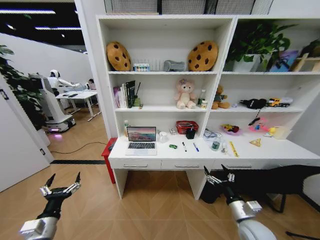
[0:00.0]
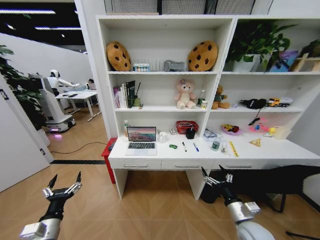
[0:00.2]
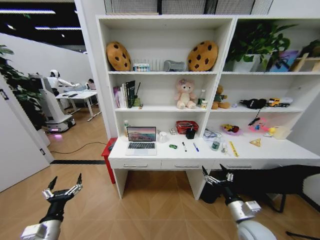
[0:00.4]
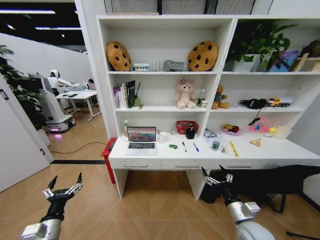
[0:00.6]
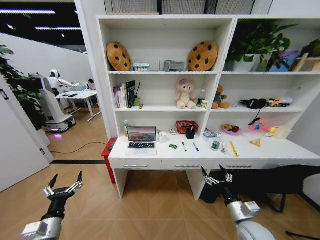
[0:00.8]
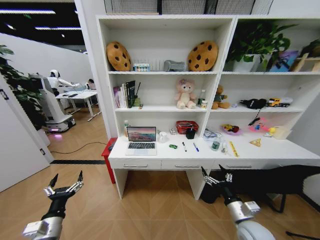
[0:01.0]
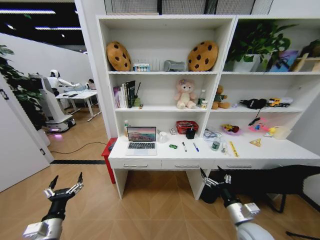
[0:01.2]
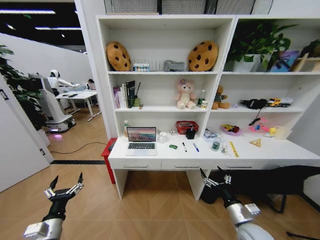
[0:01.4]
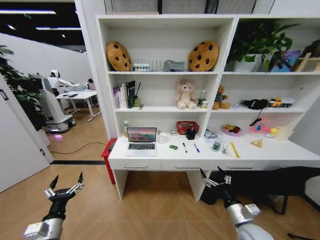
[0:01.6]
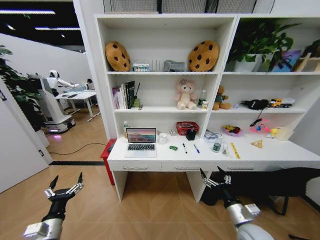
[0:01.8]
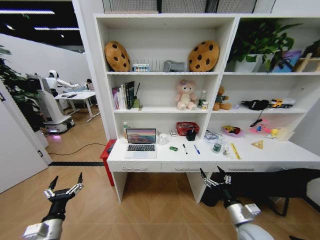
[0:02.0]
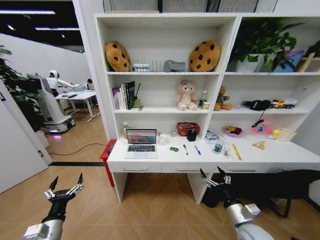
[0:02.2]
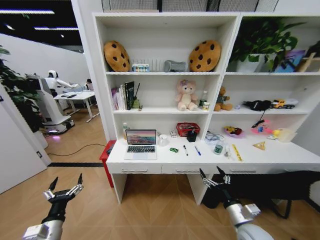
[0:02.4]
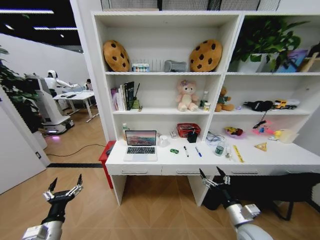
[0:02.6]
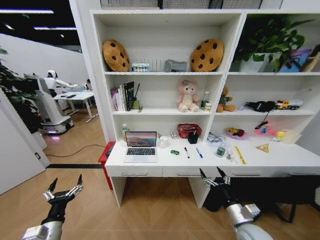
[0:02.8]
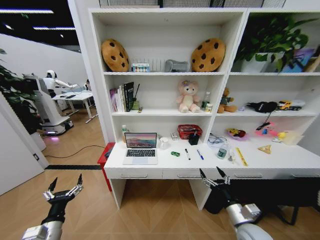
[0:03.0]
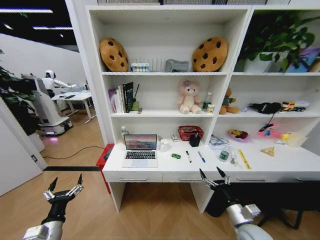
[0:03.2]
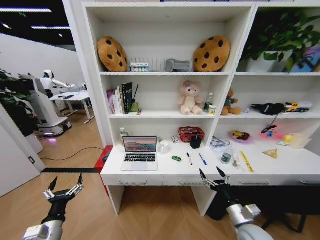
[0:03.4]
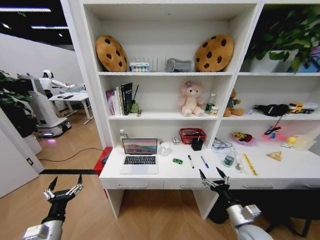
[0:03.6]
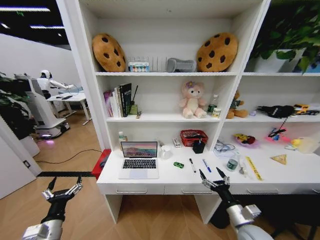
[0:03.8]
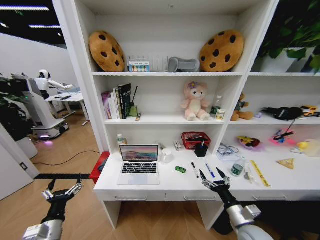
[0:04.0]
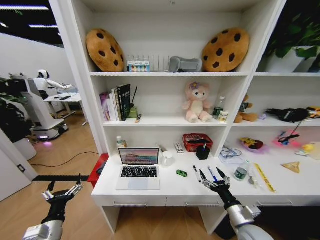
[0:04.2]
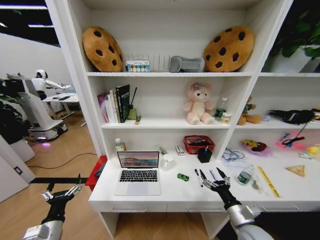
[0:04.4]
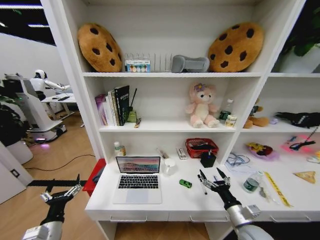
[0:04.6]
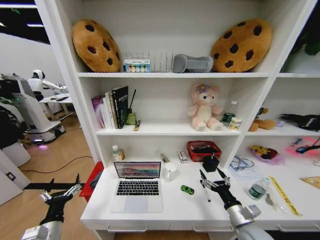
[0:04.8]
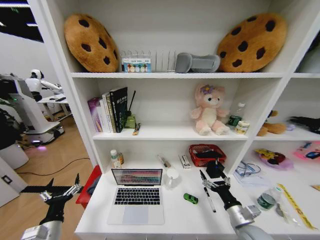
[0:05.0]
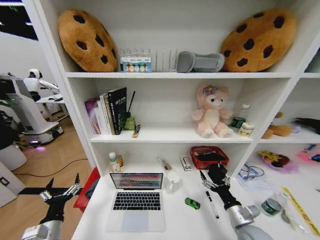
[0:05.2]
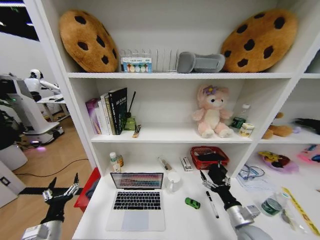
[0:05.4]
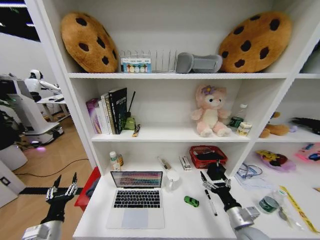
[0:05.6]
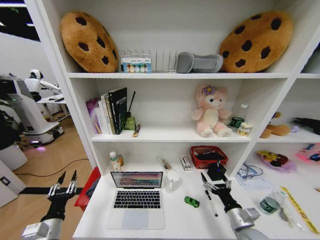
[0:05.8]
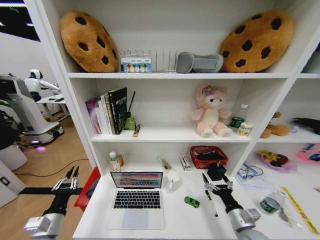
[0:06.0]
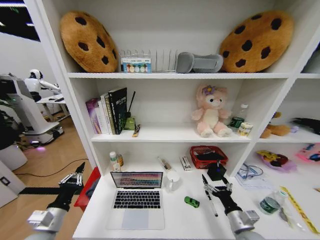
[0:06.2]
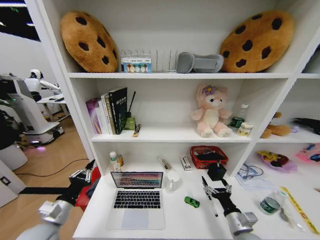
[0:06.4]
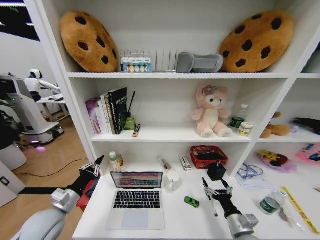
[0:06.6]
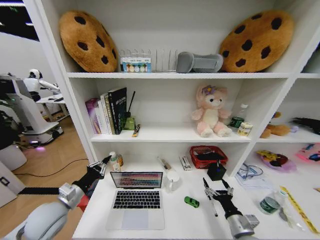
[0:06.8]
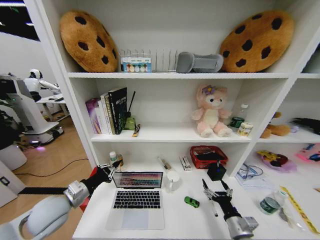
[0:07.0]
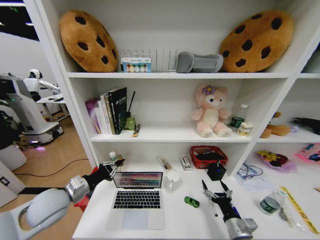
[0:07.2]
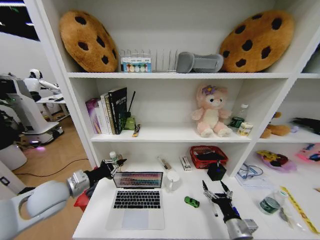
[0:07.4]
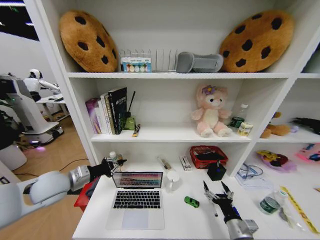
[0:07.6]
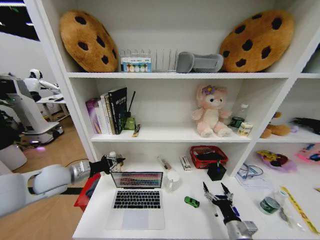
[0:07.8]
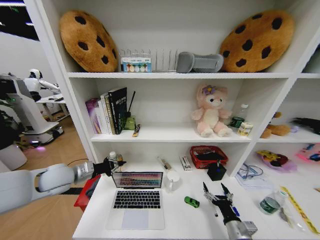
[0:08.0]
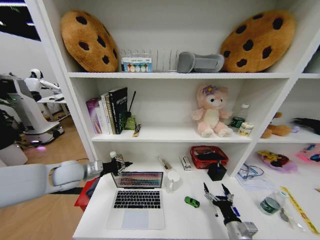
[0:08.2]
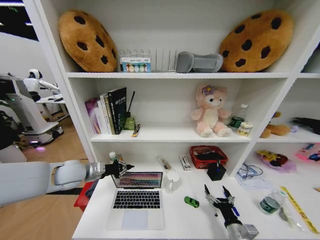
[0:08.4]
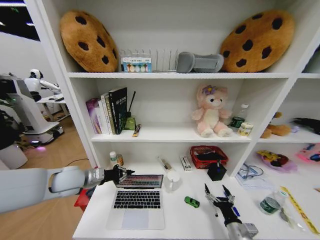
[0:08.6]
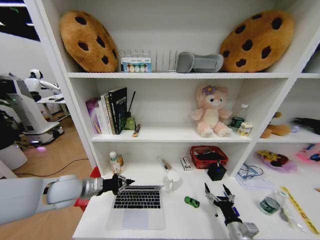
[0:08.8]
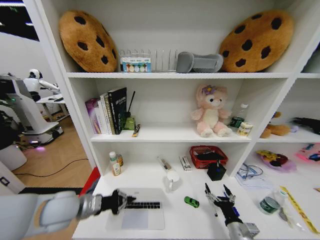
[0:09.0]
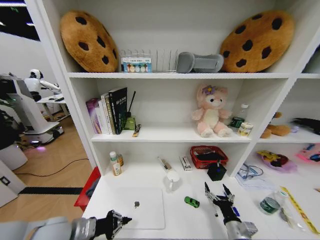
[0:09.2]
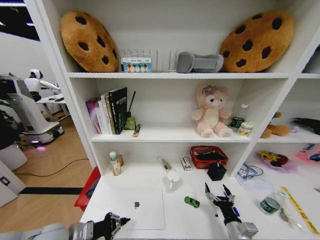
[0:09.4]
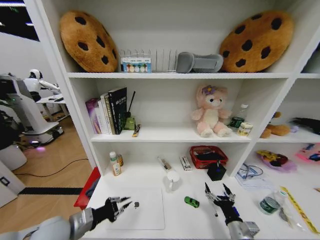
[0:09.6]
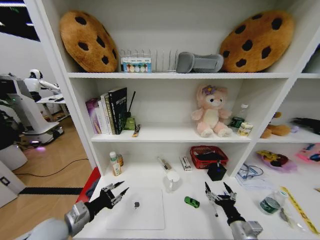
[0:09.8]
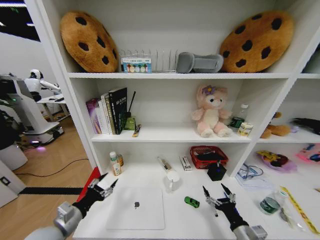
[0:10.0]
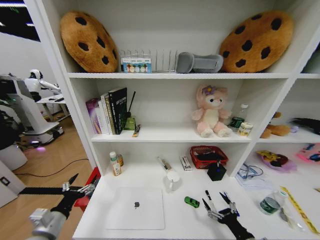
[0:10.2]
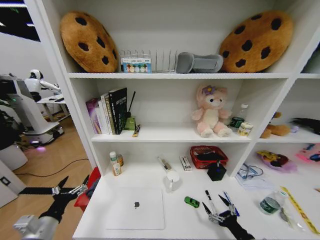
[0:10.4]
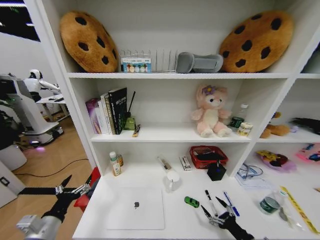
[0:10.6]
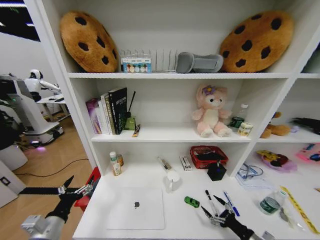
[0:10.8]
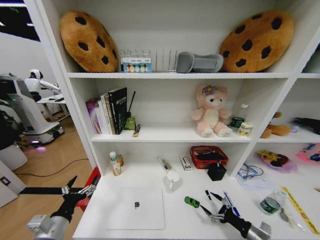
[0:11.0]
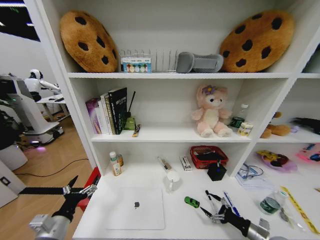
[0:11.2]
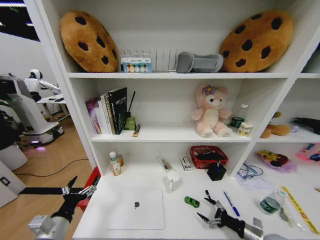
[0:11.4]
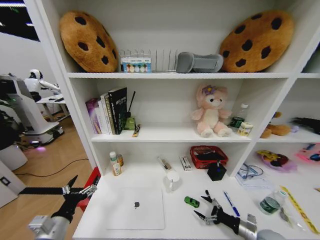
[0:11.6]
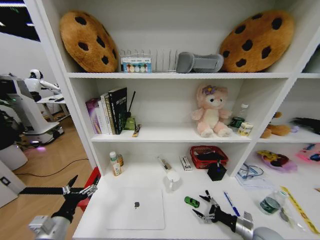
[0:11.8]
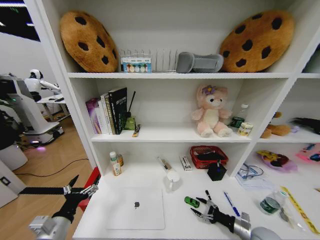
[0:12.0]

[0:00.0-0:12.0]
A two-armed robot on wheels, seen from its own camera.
Task of the whole recording: Organize the objects on the table.
0:04.4 to 0:06.0: The left gripper closes.
0:06.0 to 0:07.6: The left gripper is displaced forward and upward by approximately 20 cm.
0:07.6 to 0:09.0: The left gripper reaches about 5 cm forward, then returns.
0:09.0 to 0:10.4: The right gripper is displaced to the right by some 5 cm; the left gripper goes about 15 cm backward, downward and to the left, and opens its fingers.
0:10.4 to 0:12.0: The right gripper moves forward and to the right, some 10 cm.

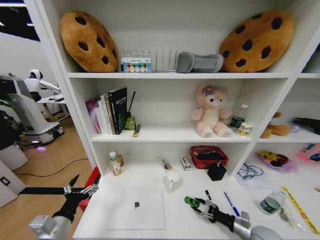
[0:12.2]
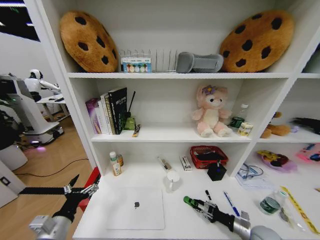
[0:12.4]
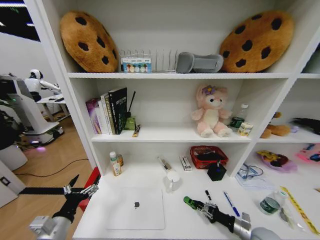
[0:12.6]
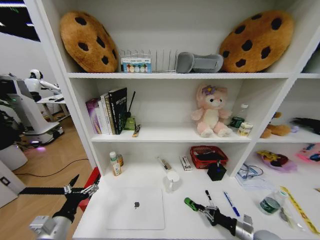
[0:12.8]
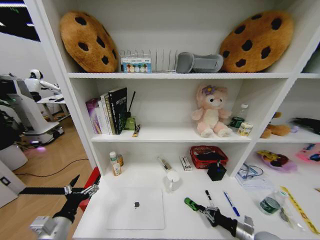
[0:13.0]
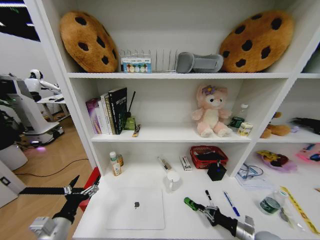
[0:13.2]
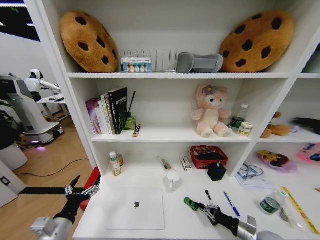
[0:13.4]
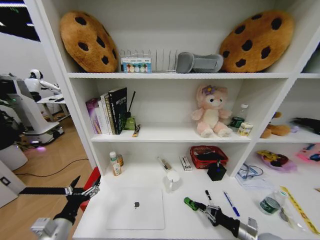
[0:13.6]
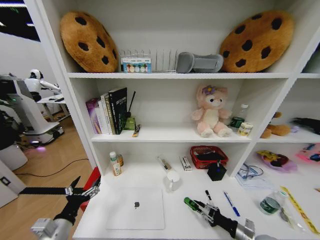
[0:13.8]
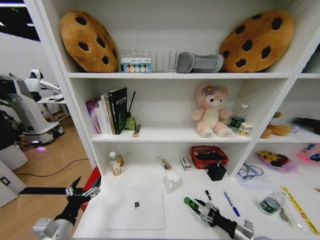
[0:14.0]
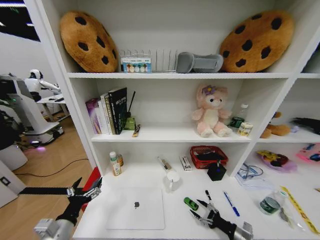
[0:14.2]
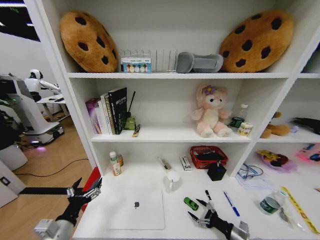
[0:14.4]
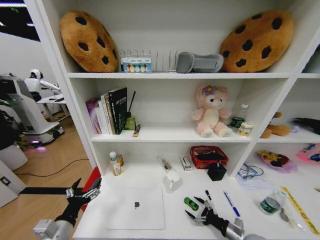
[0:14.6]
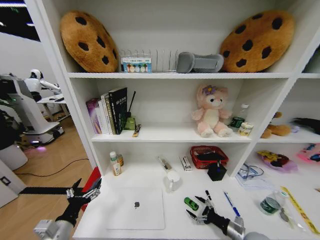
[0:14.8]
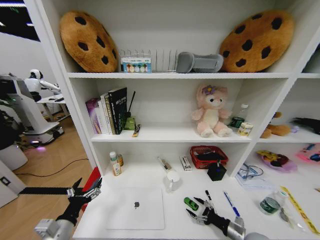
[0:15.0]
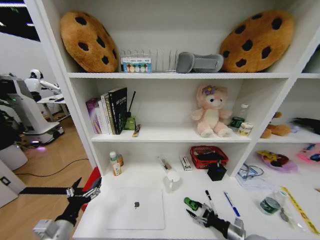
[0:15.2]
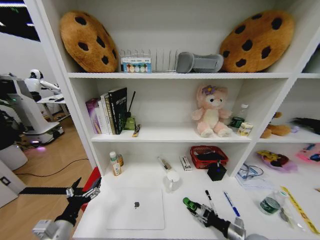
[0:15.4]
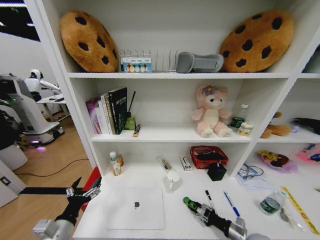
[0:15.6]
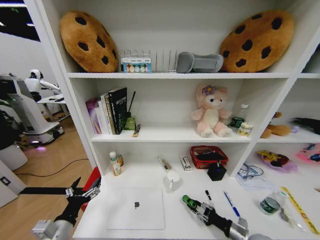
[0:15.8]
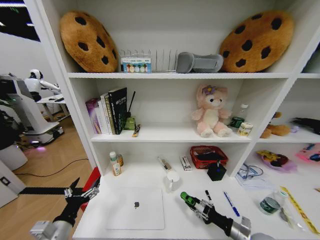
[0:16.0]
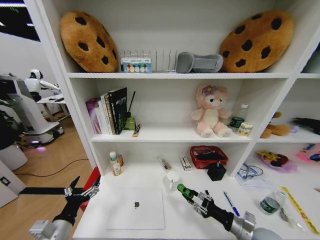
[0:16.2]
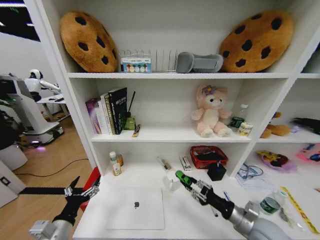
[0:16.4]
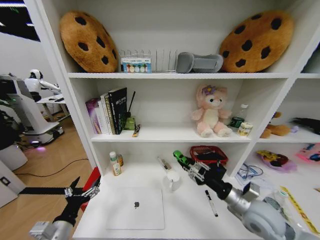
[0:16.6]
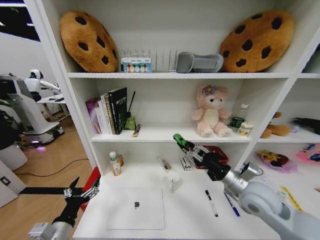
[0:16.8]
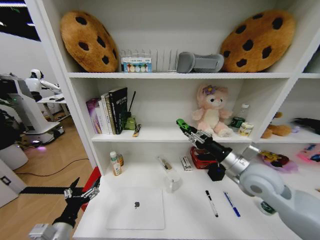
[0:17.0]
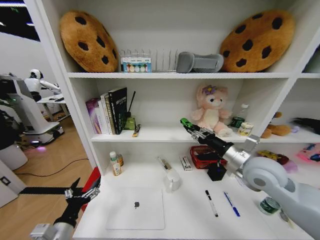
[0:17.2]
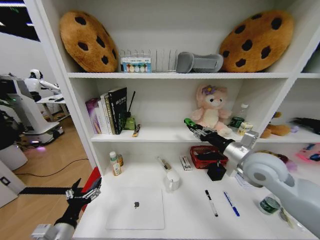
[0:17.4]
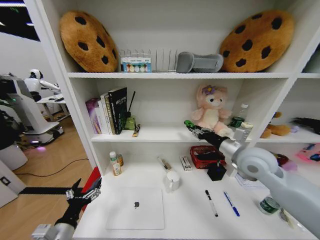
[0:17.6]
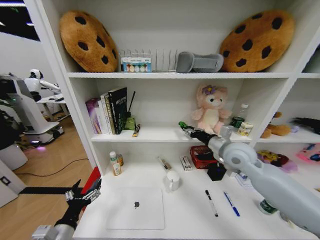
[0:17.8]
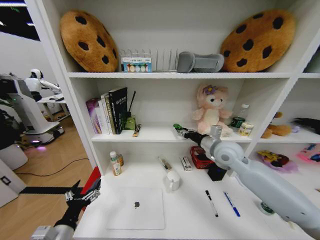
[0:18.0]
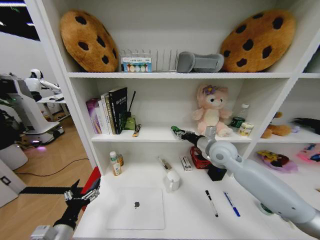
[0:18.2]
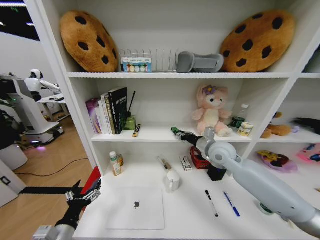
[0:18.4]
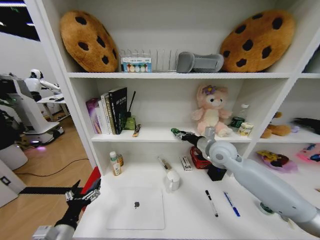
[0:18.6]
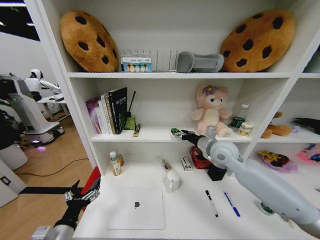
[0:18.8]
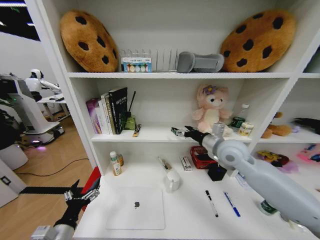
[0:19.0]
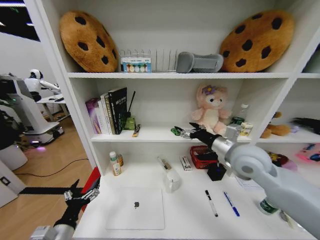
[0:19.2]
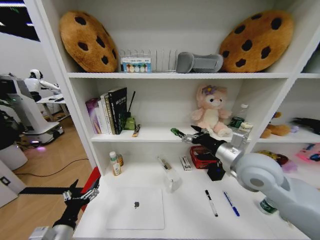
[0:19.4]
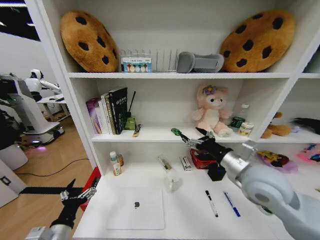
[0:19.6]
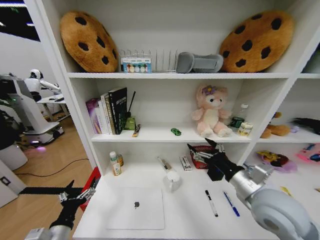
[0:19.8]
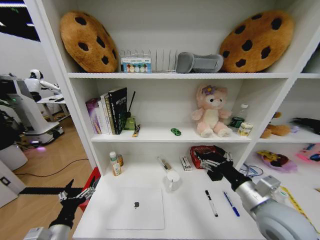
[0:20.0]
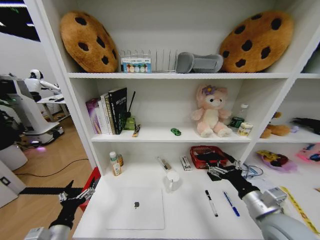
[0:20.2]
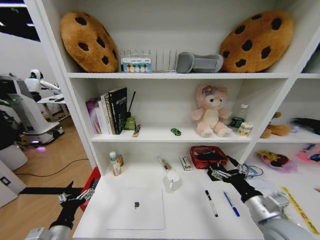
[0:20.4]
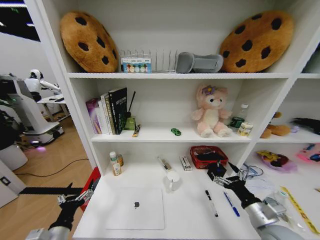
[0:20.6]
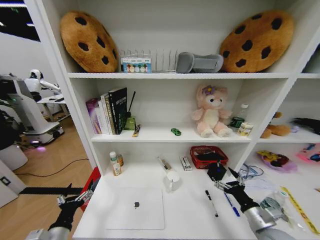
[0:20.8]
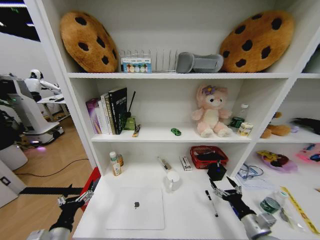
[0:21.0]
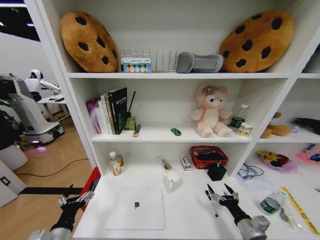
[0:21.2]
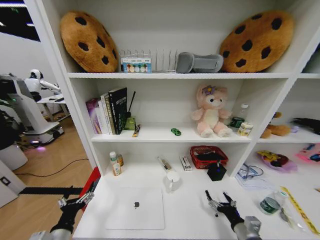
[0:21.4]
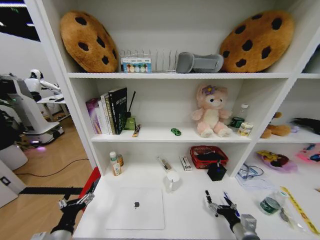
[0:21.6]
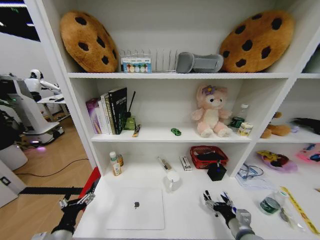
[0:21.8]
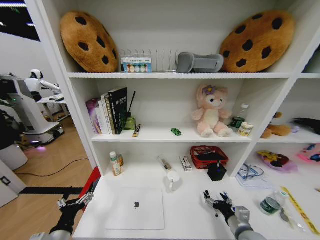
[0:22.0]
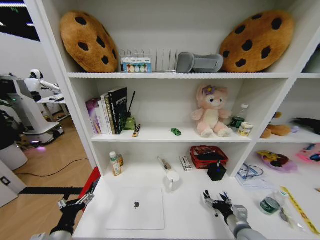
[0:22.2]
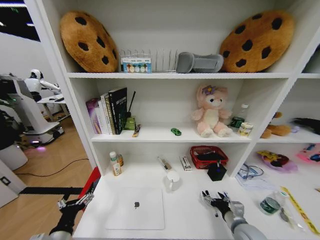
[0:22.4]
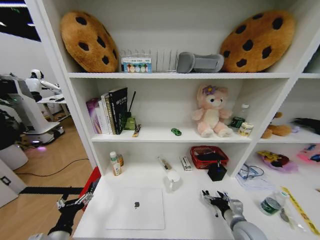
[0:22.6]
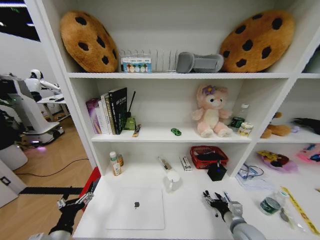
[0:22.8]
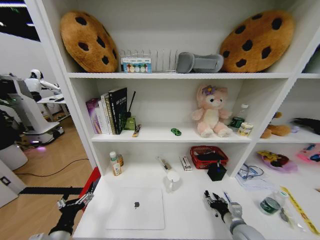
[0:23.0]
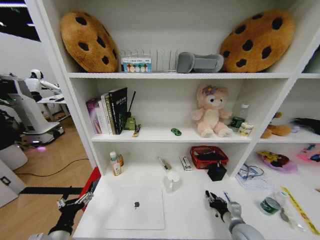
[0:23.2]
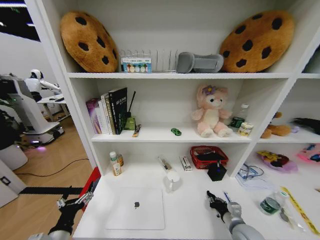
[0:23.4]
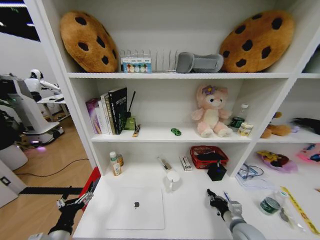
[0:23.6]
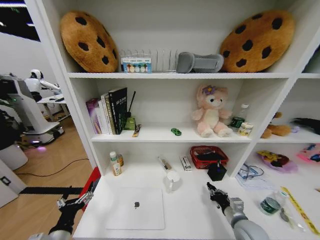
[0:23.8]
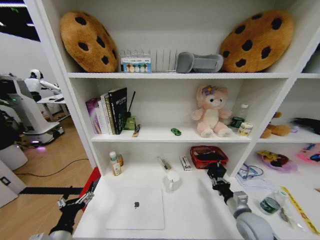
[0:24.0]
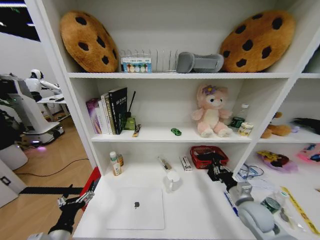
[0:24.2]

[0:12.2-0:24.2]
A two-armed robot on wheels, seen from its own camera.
Task of the whole recording: Organize the objects on the table.
0:12.2 to 0:13.8: The grippers make only small movements.
0:13.8 to 0:15.2: The right gripper opens.
0:15.2 to 0:16.6: The right gripper is displaced upward by roughly 20 cm.
0:16.6 to 0:18.2: The right gripper shifts approximately 20 cm forward and upward.
0:18.2 to 0:19.8: The right gripper heads backward, covering roughly 20 cm, and opens its fingers.
0:19.8 to 0:21.2: The right gripper shifts roughly 25 cm downward.
0:21.2 to 0:22.6: The right gripper moves forward, approximately 5 cm.
0:22.6 to 0:24.2: The right gripper heads upward, covering some 5 cm, and closes.
